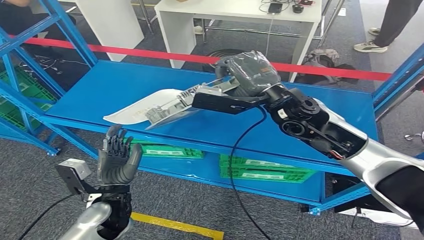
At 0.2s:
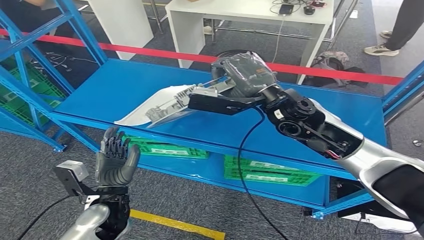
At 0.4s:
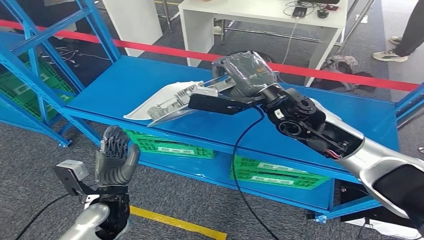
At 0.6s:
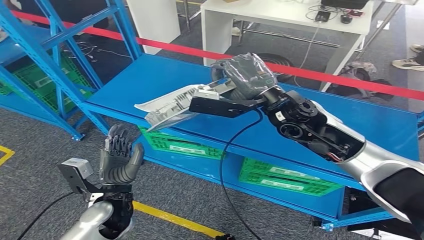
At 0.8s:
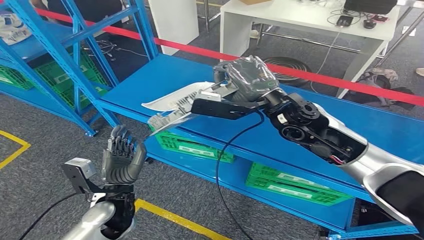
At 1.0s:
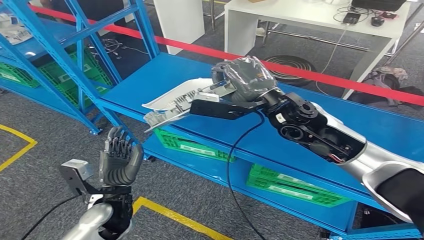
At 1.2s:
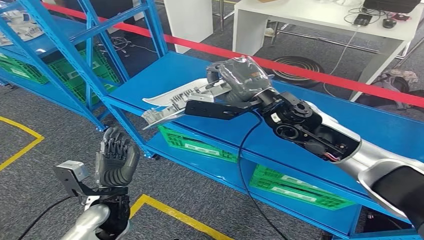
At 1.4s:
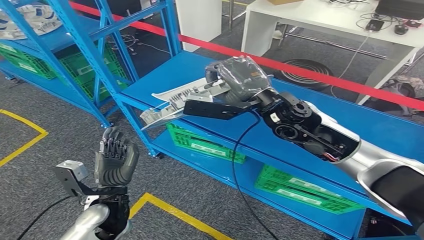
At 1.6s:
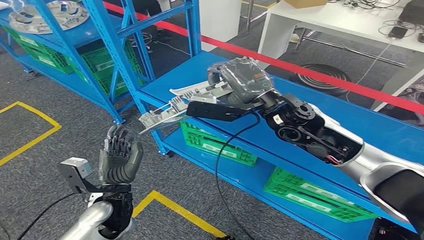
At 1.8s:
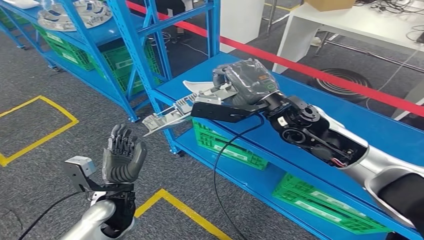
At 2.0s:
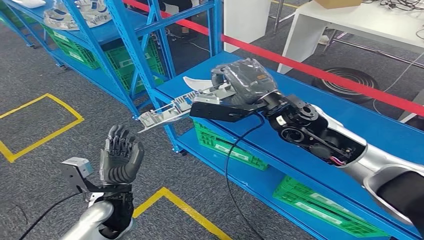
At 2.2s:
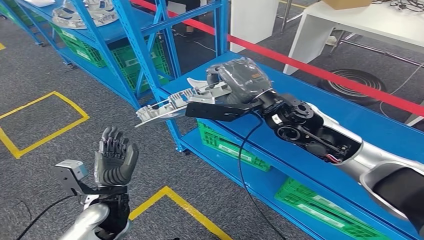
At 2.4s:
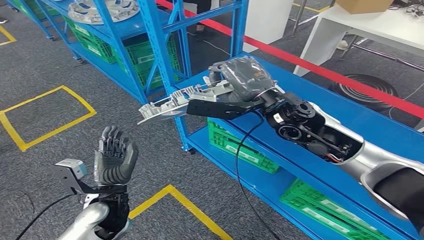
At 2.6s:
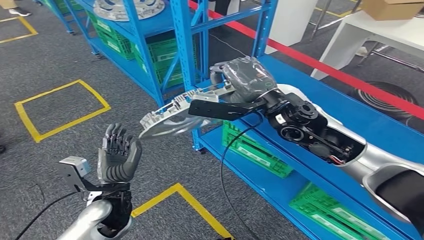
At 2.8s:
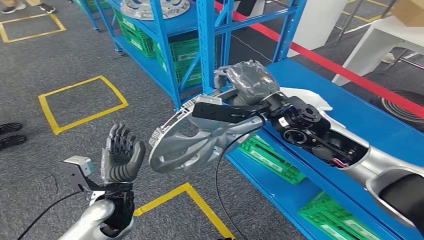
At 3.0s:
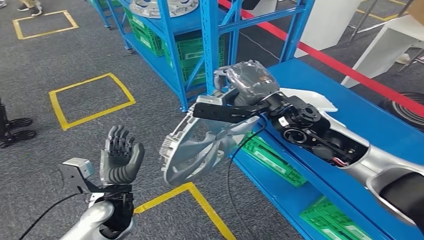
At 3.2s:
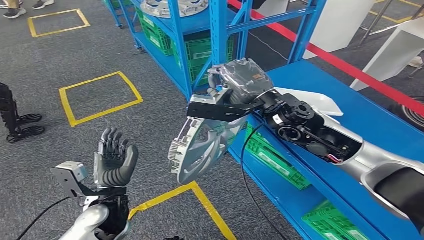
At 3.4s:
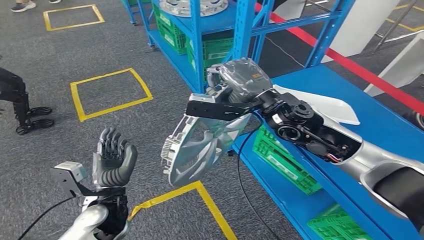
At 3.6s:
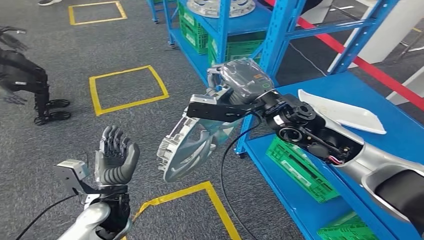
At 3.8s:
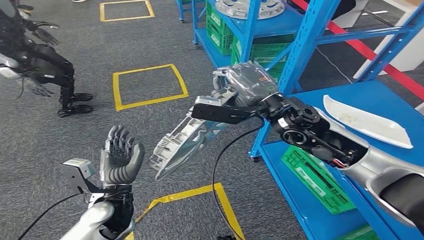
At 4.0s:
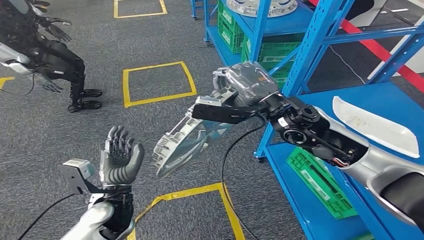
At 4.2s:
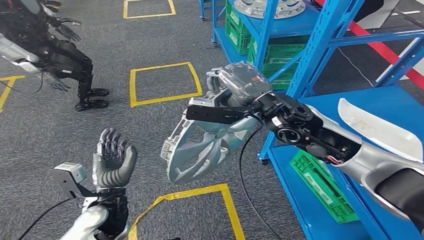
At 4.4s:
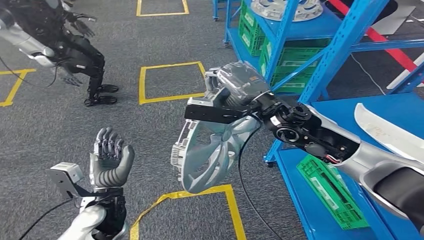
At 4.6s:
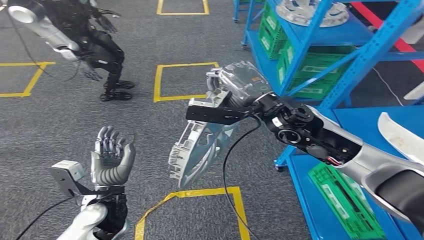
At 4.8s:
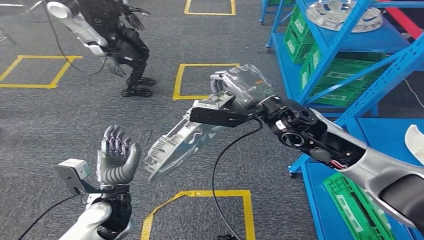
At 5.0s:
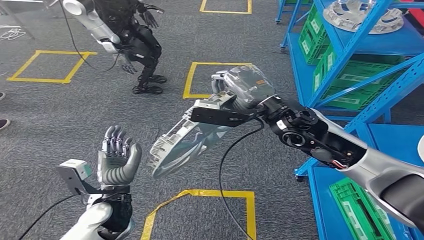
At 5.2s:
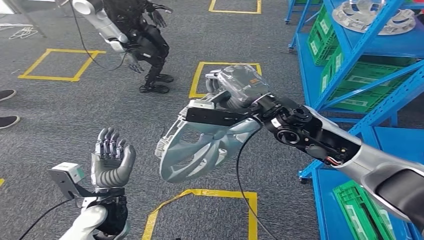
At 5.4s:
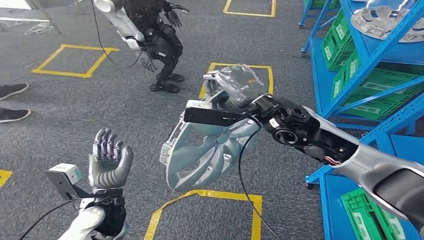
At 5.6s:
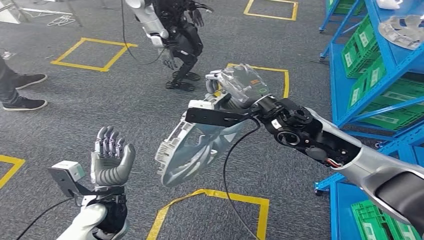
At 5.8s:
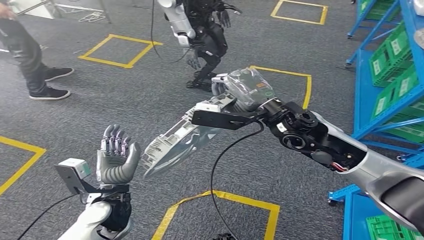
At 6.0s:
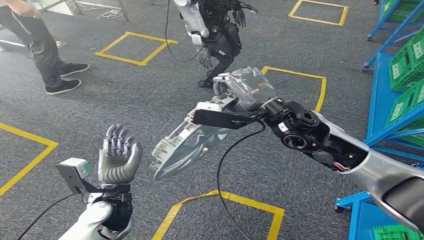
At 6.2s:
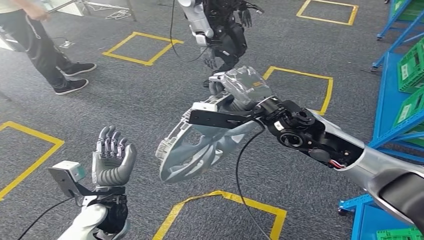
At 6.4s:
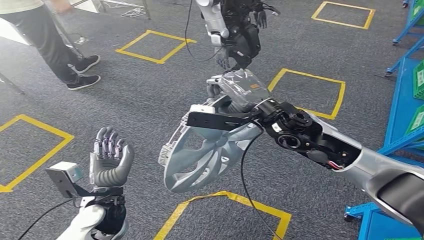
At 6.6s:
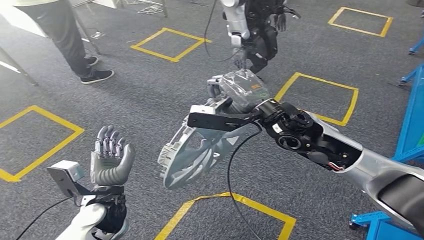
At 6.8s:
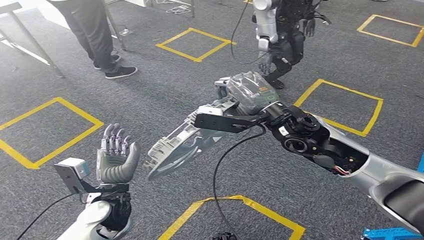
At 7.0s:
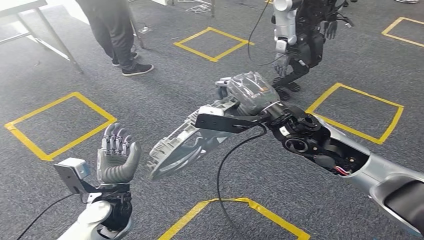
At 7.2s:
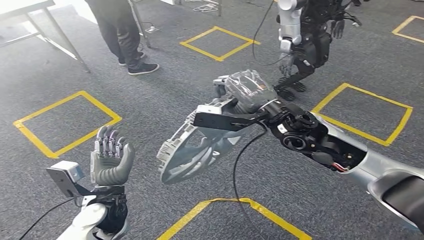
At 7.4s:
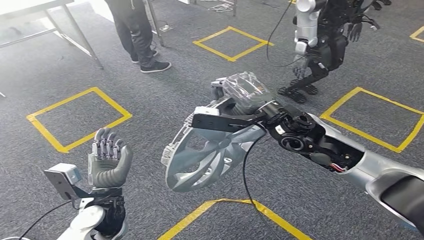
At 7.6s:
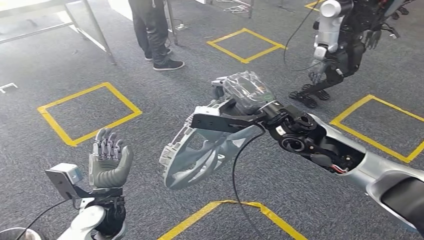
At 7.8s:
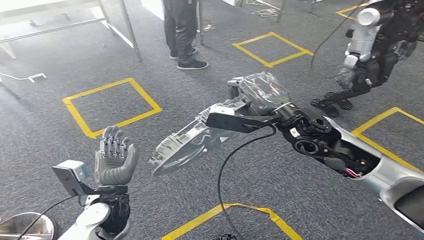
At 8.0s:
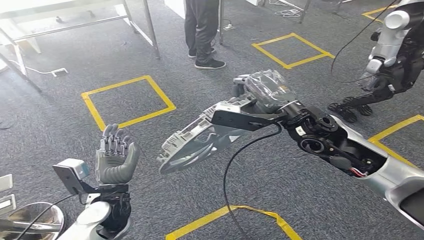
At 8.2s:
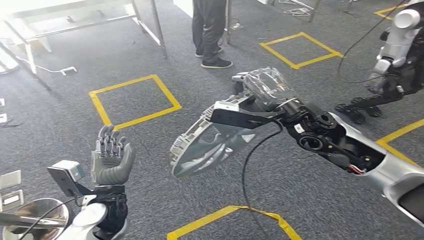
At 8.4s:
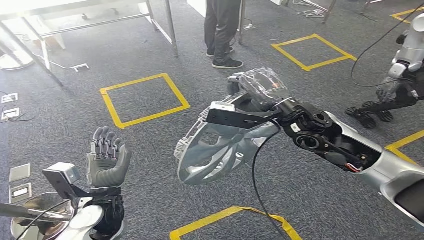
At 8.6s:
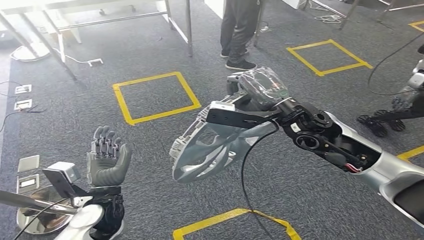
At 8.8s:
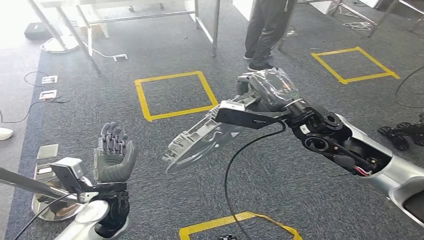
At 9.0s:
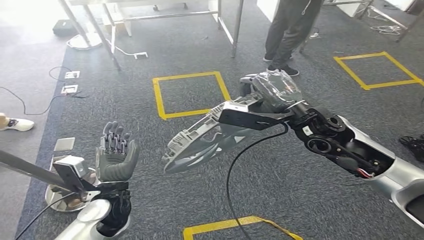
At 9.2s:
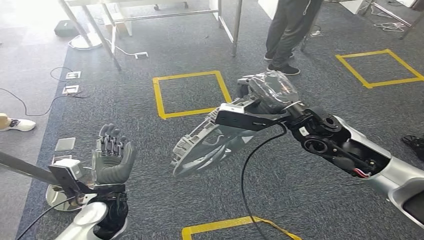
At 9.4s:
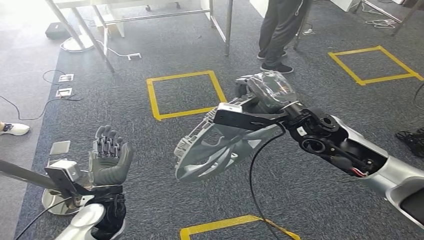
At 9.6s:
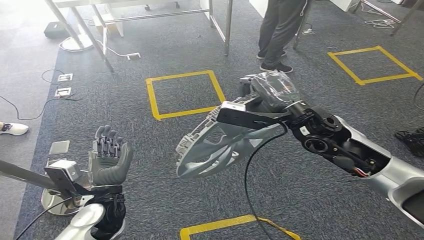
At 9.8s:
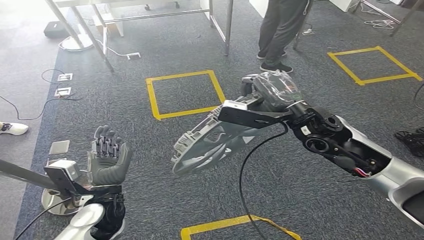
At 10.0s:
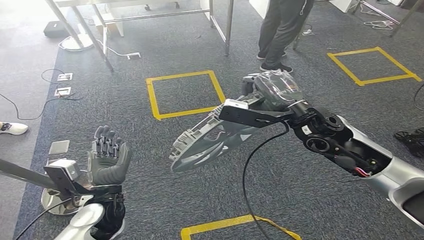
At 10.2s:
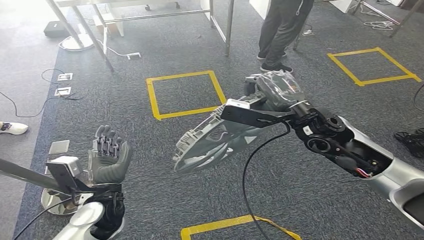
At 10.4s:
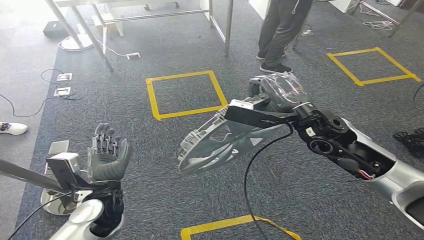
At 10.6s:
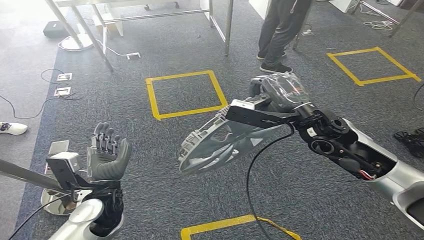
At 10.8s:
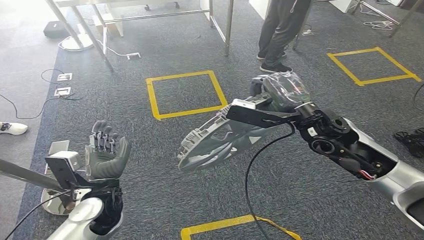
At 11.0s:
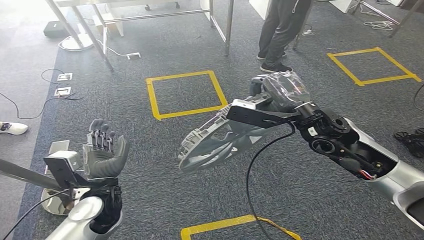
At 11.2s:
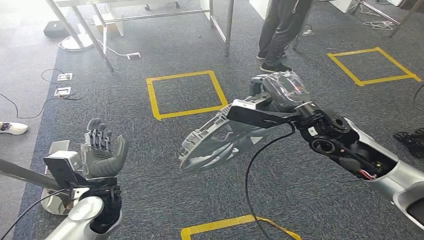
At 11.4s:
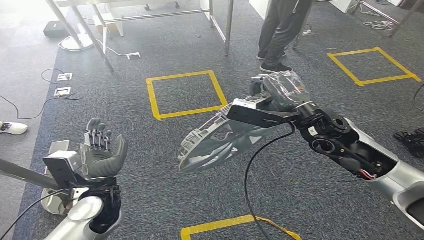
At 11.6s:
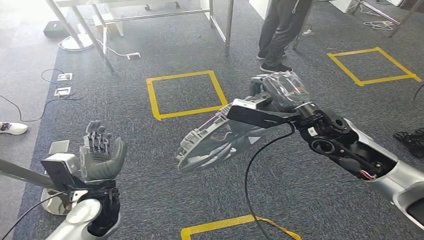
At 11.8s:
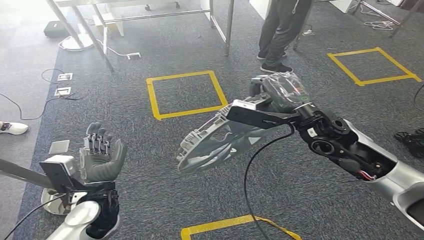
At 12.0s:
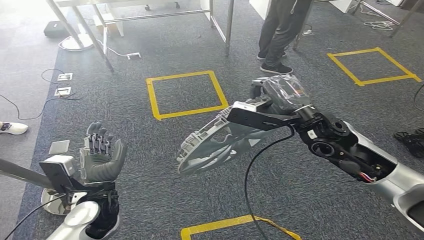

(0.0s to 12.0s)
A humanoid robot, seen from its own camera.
10.4s - 12.0s: The hands stay close to where they were, moving slightly.

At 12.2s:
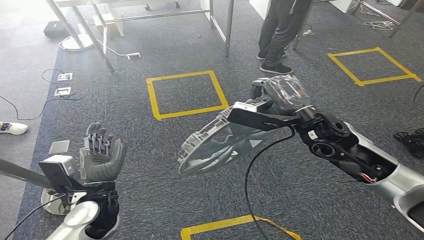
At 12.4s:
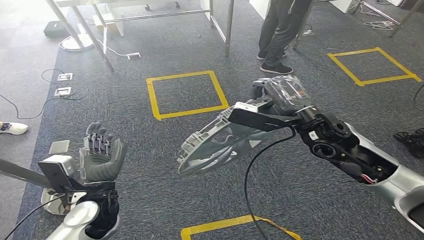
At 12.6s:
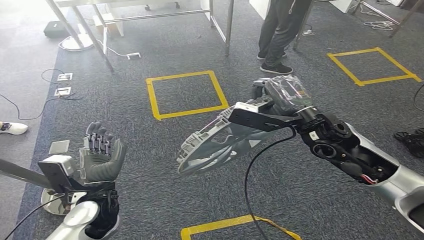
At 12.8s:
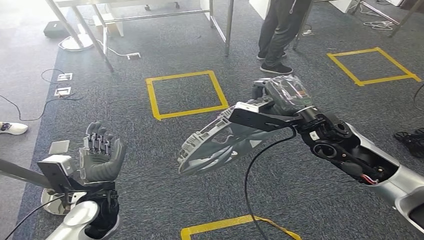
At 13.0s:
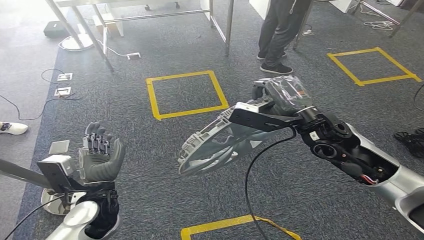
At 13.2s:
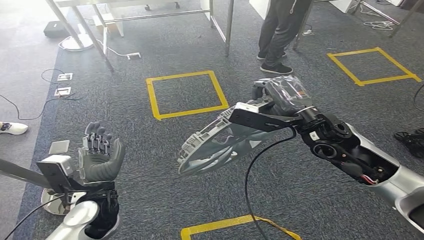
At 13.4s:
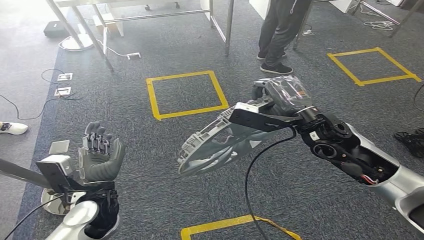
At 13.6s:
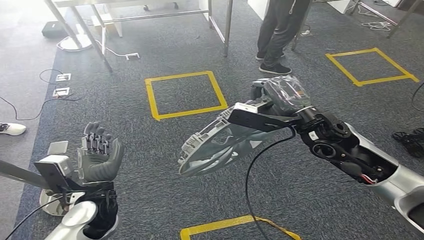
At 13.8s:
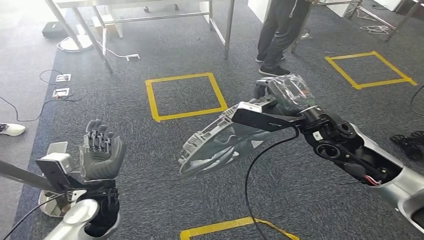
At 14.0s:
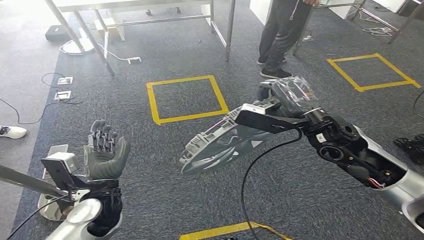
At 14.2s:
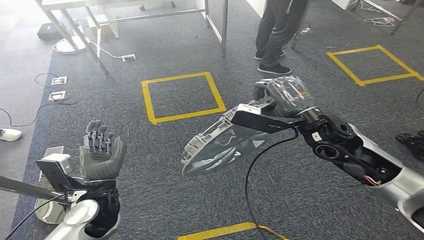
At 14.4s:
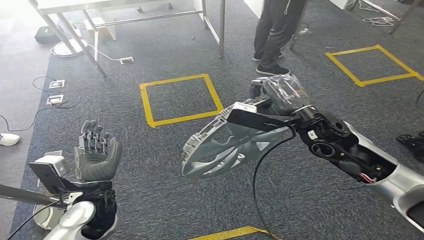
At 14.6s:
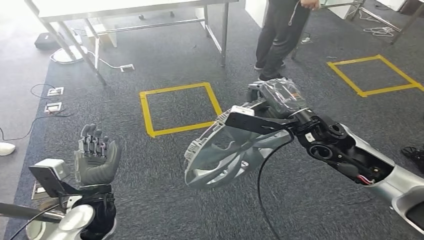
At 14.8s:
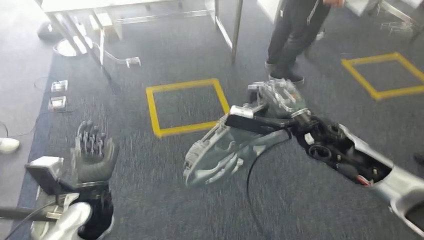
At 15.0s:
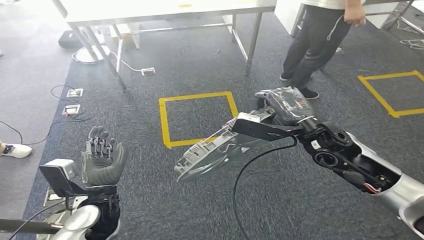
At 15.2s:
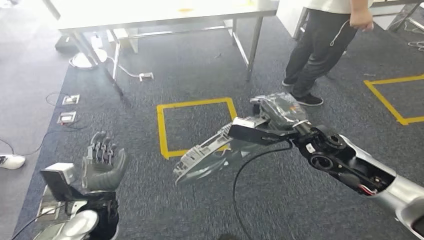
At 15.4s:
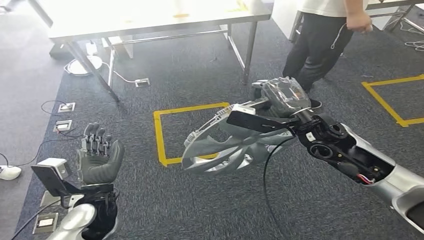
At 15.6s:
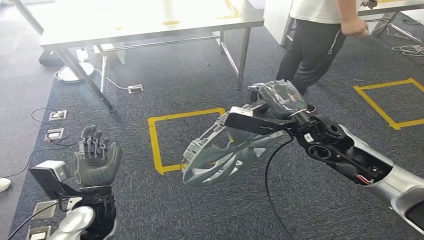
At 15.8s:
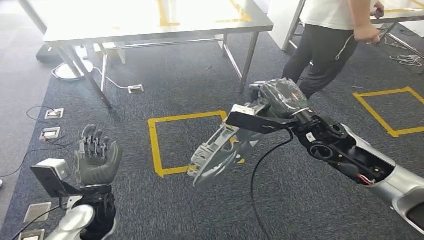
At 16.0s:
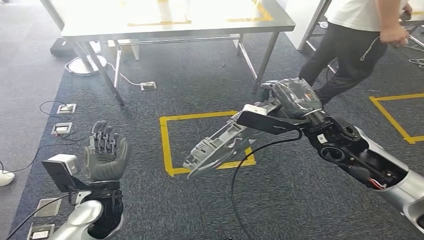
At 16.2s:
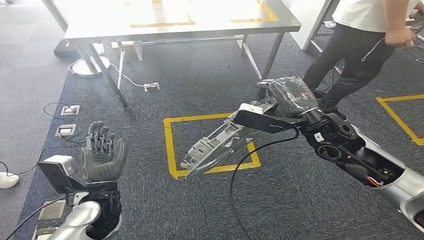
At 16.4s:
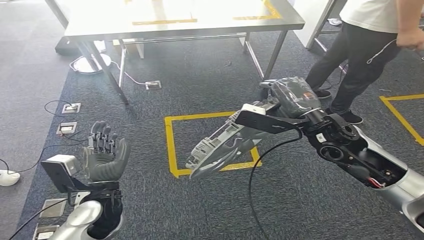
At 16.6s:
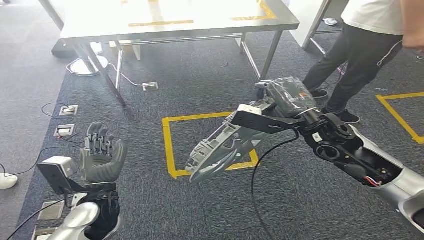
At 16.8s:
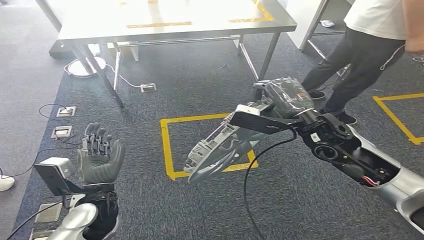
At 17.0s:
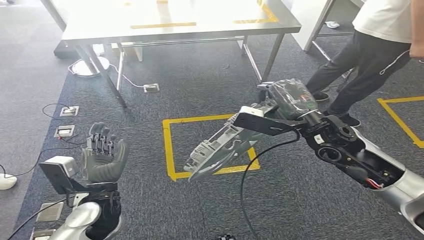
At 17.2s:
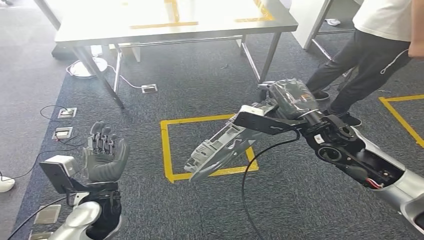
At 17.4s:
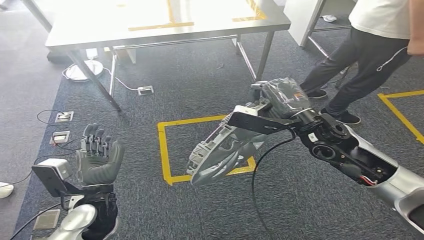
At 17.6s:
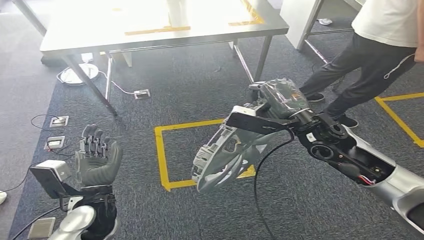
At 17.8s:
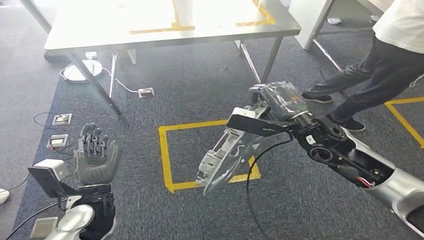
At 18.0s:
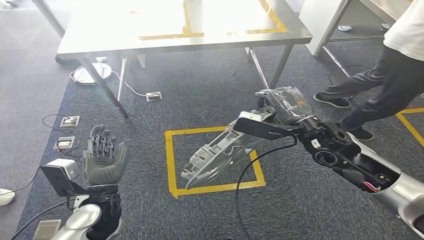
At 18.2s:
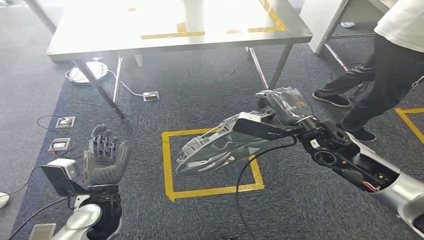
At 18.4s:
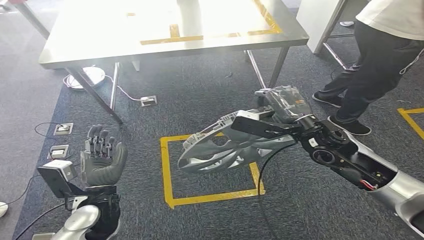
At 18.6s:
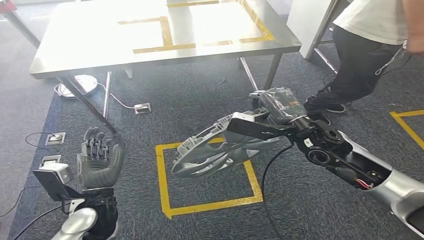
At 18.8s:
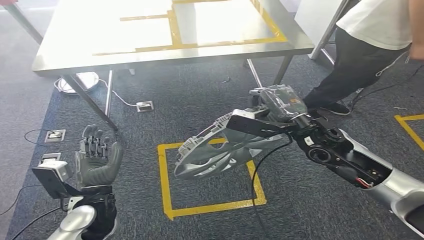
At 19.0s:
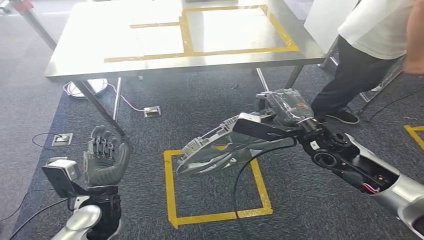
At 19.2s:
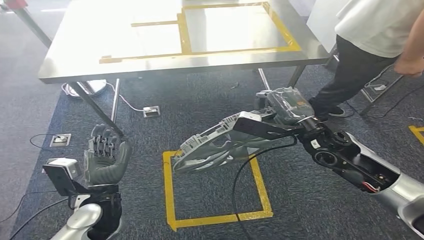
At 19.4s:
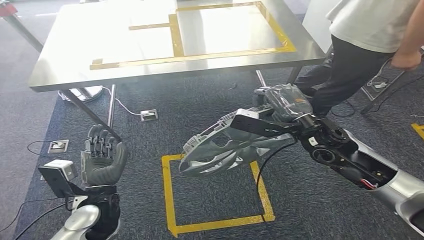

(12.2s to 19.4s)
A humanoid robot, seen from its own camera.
12.2s - 13.6s: Neither hand changes place.
